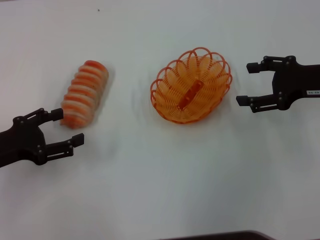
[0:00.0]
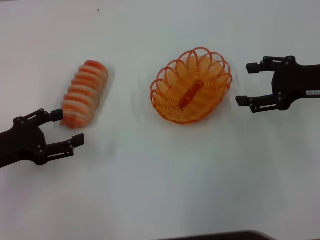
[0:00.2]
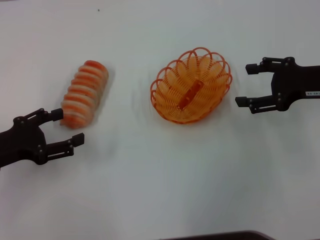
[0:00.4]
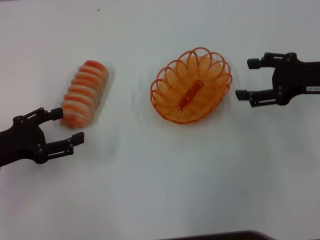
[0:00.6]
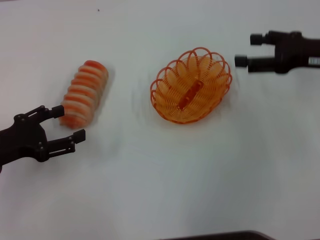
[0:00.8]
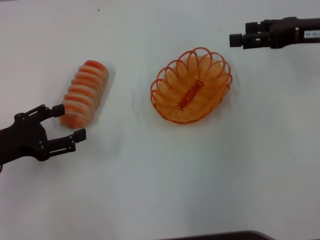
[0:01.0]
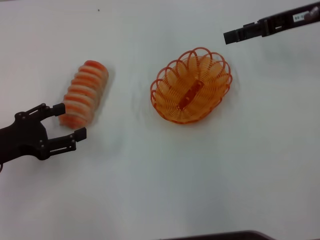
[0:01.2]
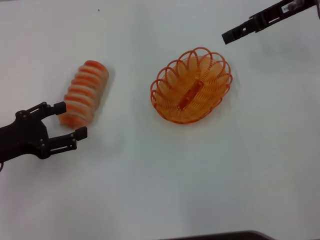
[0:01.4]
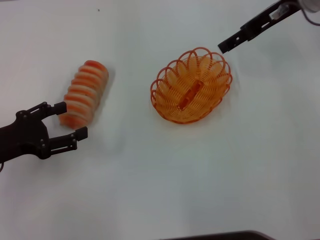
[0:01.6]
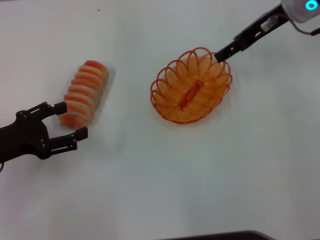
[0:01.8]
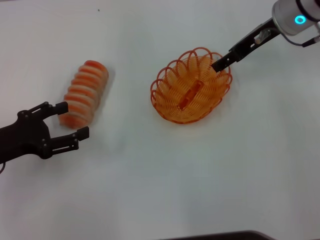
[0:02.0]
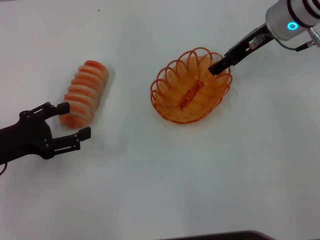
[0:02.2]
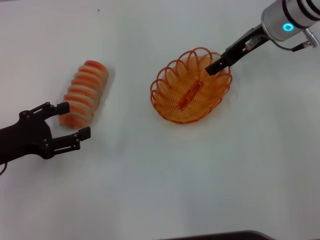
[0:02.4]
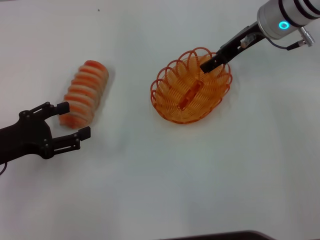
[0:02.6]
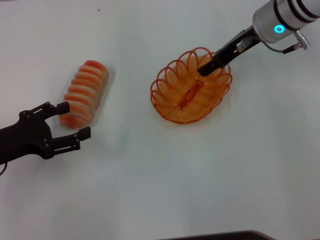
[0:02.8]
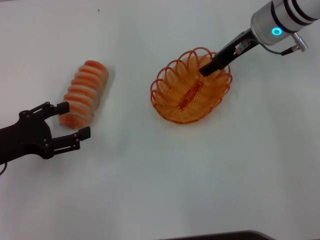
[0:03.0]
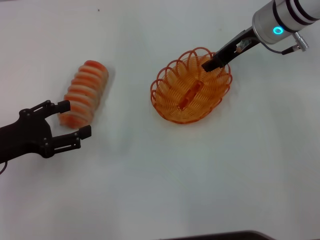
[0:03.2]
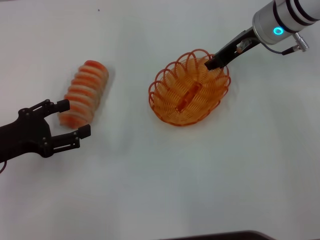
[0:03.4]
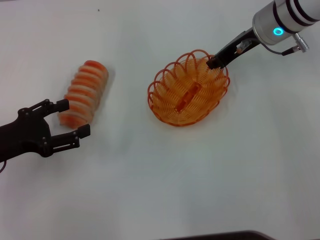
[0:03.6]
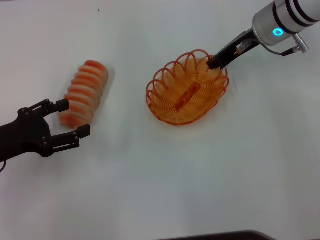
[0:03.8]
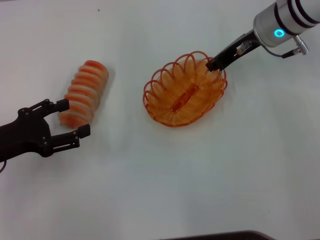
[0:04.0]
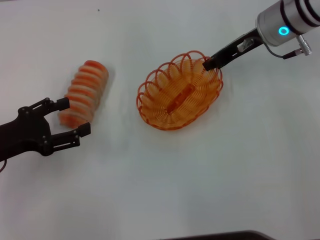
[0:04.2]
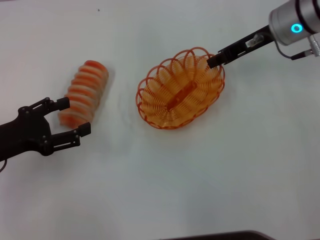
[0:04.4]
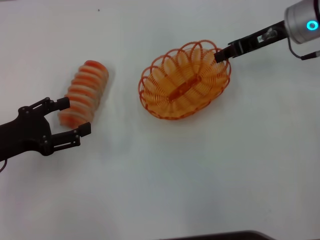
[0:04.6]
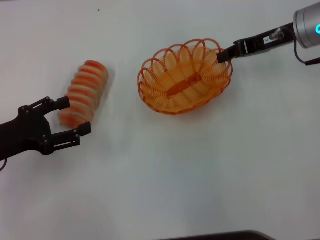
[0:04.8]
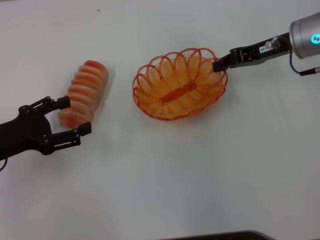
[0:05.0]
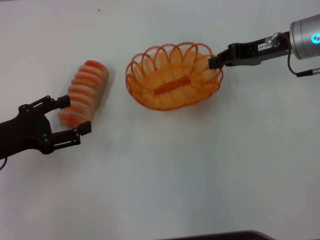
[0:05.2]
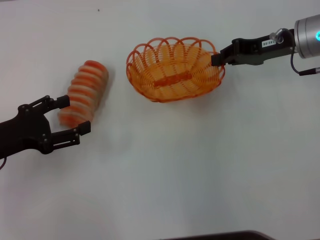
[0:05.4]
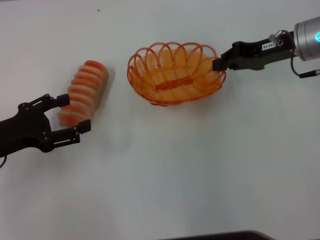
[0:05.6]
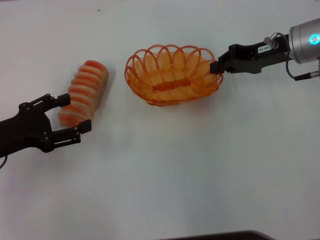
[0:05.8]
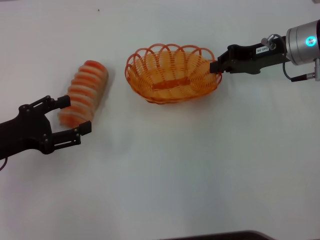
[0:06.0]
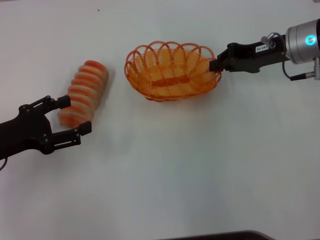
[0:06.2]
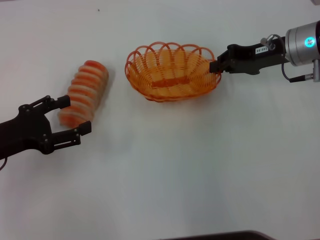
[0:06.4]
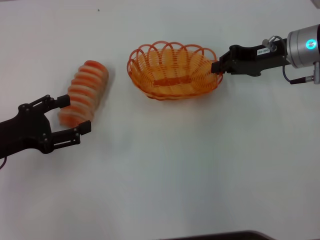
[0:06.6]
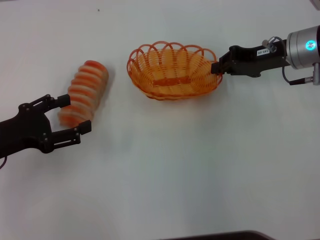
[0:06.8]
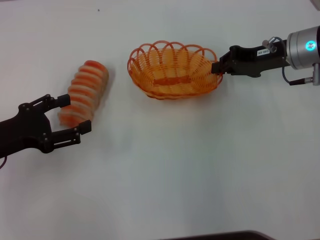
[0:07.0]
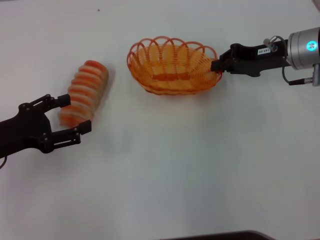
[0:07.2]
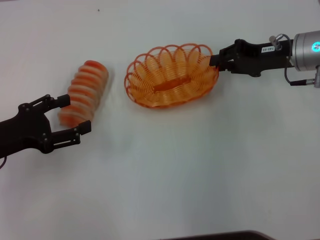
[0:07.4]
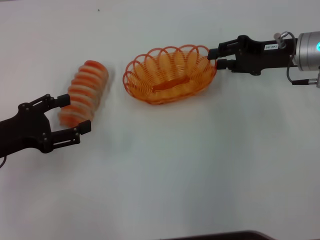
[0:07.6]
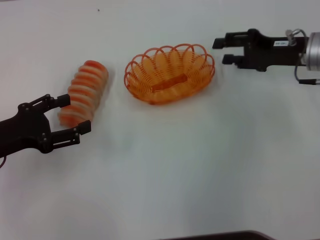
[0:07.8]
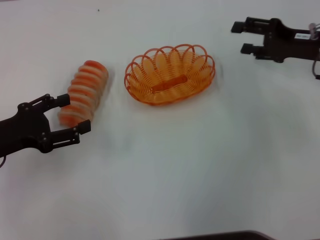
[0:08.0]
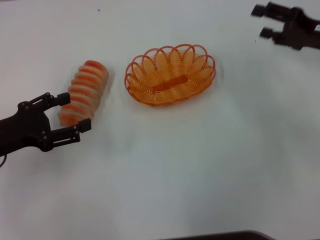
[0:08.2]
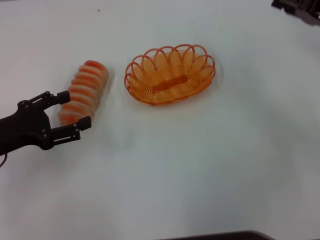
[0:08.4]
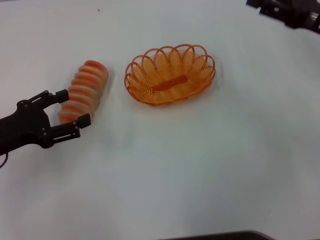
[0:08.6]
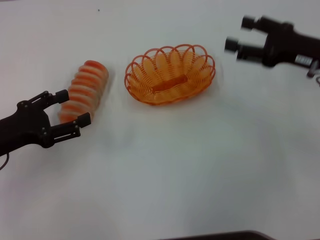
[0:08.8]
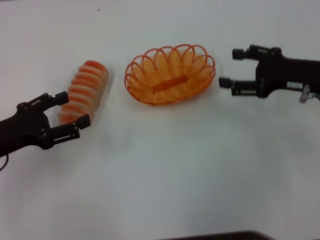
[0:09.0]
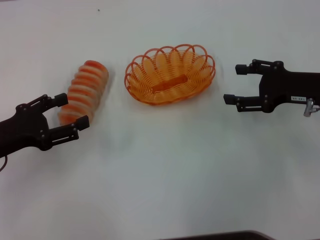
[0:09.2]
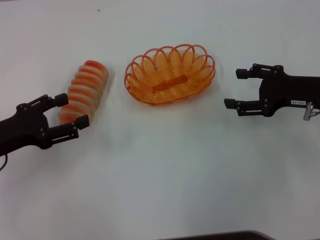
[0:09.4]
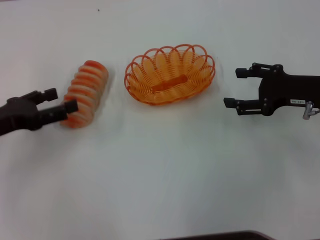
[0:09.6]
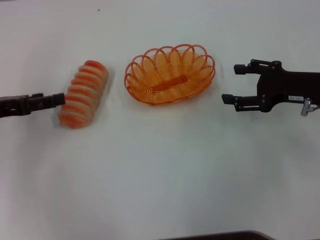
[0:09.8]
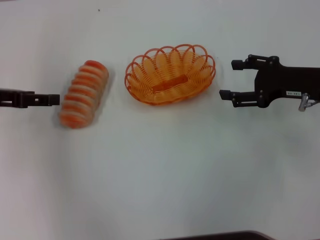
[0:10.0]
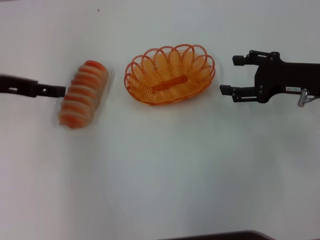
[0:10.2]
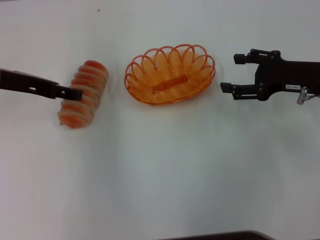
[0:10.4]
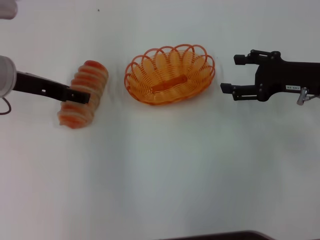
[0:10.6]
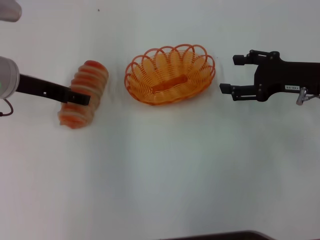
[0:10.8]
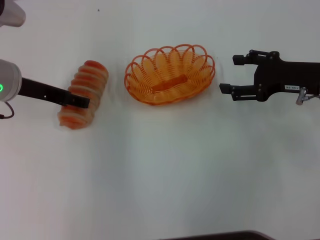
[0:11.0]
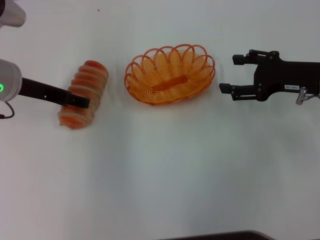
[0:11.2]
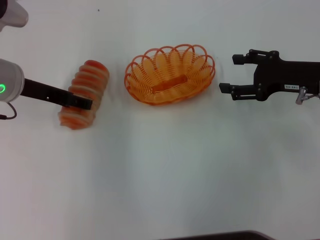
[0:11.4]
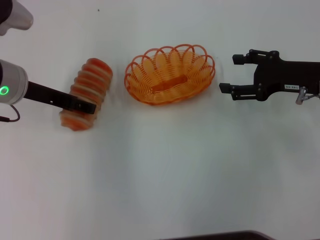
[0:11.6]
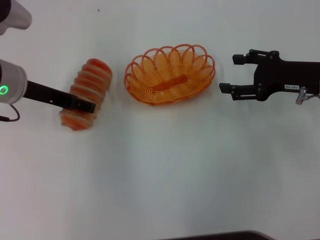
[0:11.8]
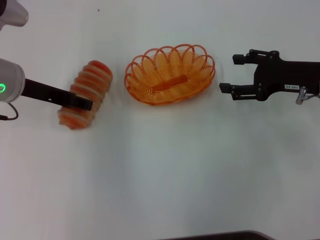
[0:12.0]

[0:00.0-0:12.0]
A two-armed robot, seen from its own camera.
Step, 0:00.0 to 0:04.8: Pick up the basket with the right gripper.
Step, 0:05.0 to 0:07.8: Place the basket in the center of view with the right gripper.
0:00.0 to 0:01.6: The right gripper shifts approximately 15 cm forward, upward and to the left.
0:01.6 to 0:03.0: The right gripper heads downward, covering about 5 cm.
0:03.0 to 0:04.4: The right gripper closes up.
0:04.4 to 0:06.0: The right gripper shifts by about 5 cm.
0:06.0 to 0:07.6: There are only small adjustments of the grippers.
0:07.6 to 0:09.0: The right gripper travels backward by roughly 5 cm, and opens its fingers.
0:09.0 to 0:10.4: The left gripper moves forward and upward, approximately 15 cm.
0:10.4 to 0:12.0: There are only small adjustments of the grippers.

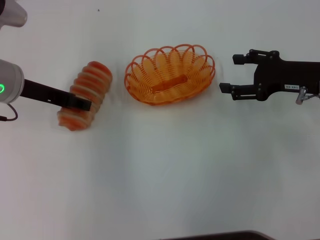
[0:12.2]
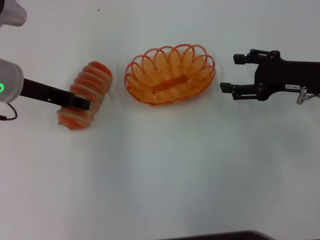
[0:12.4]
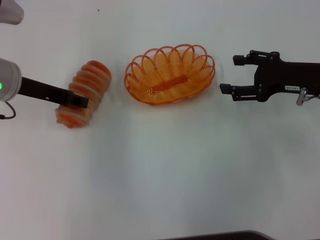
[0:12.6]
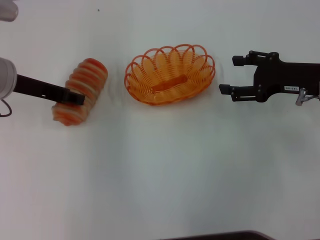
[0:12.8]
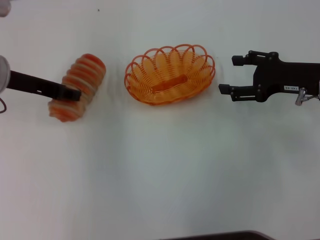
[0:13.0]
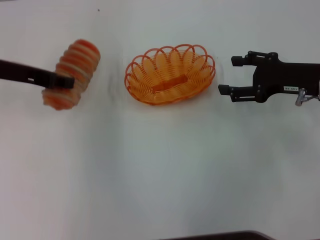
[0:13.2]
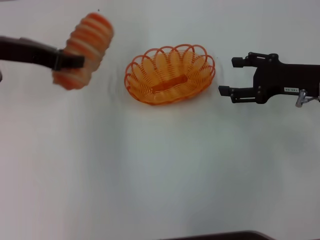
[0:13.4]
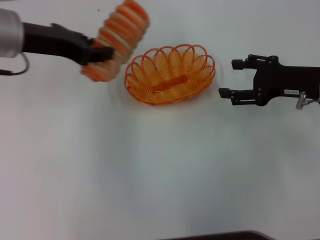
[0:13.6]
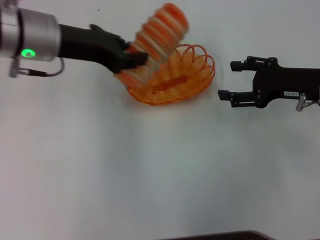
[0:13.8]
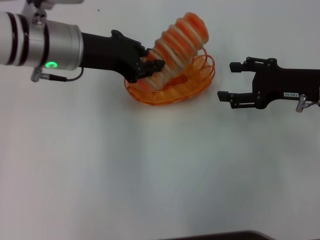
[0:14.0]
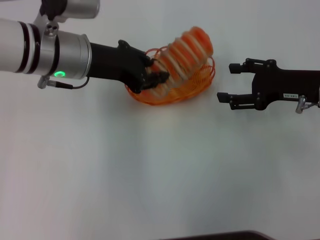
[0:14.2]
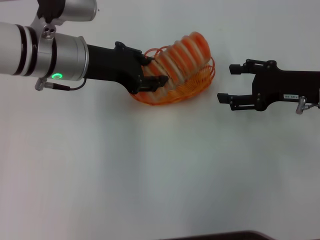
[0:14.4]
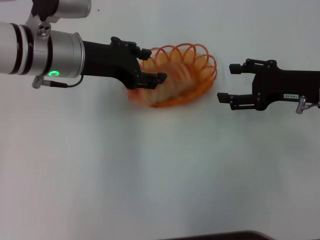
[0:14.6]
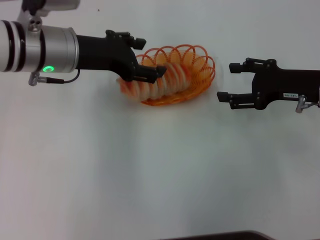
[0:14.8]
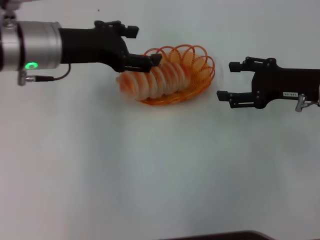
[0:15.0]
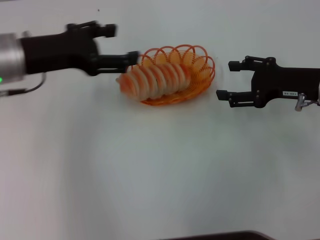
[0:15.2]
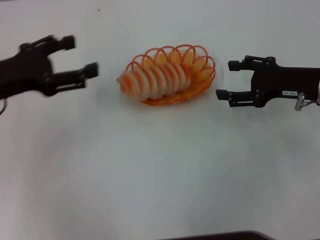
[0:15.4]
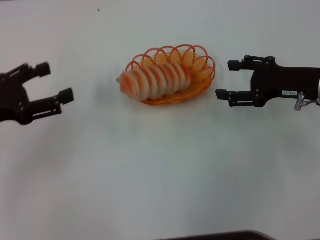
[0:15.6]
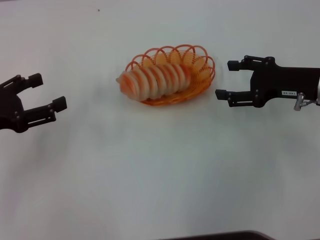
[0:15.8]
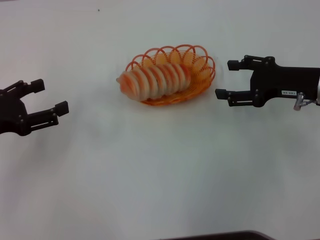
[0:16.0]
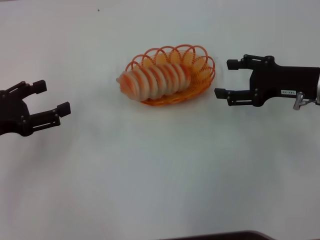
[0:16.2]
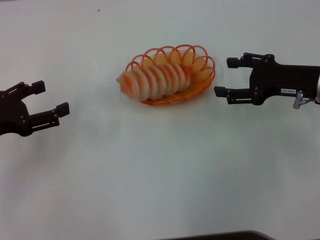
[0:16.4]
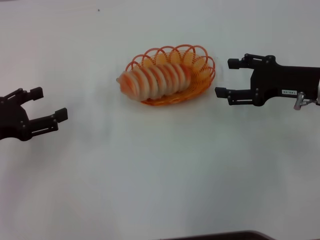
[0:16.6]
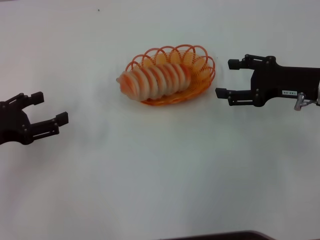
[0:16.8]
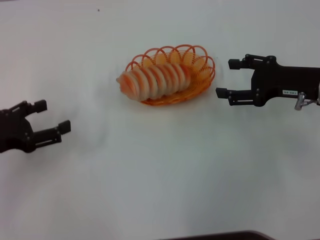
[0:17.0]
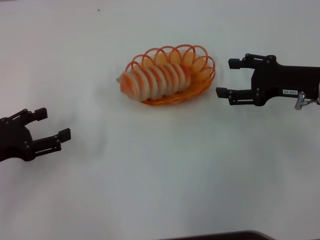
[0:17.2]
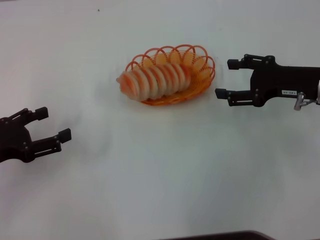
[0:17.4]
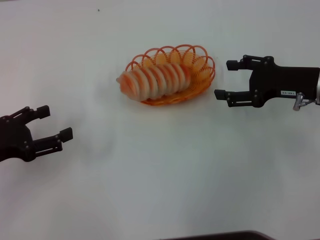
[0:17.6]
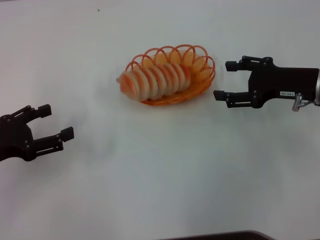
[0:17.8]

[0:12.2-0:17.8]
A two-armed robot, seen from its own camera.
Step, 0:13.2 to 0:15.2: Place the long bread into the basket with the left gripper.
0:12.2 to 0:13.6: The left gripper shifts approximately 5 cm upward, and closes its fingers.
0:13.6 to 0:15.0: The left gripper opens.
0:15.0 to 0:16.4: The left gripper shifts some 20 cm to the left, backward and downward.
0:16.4 to 0:17.8: The grippers move only a little.
